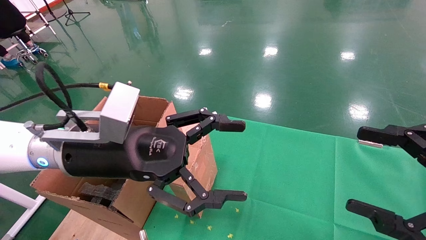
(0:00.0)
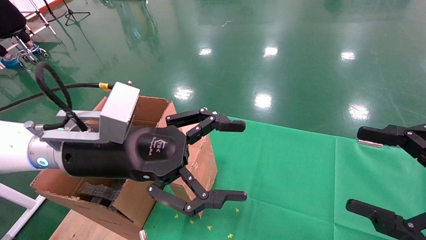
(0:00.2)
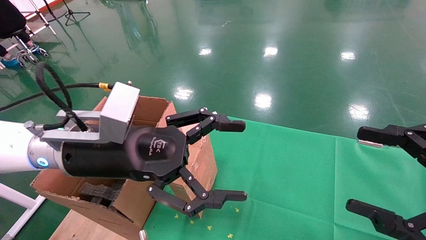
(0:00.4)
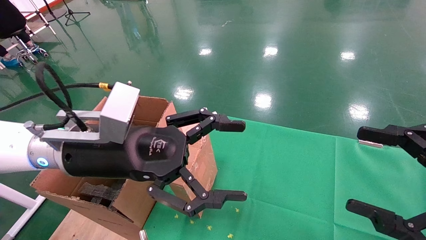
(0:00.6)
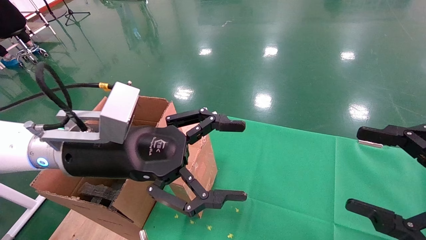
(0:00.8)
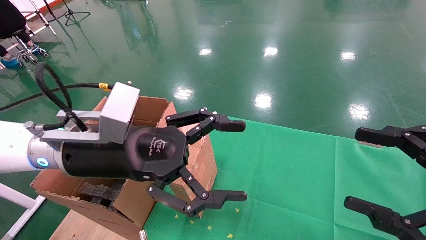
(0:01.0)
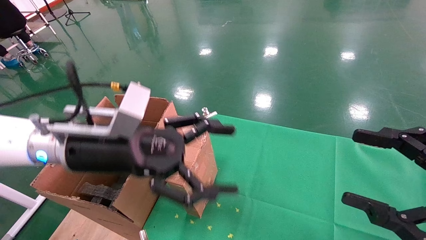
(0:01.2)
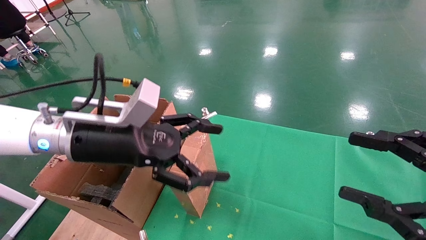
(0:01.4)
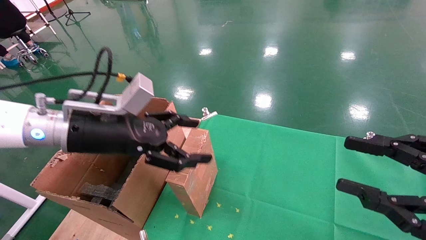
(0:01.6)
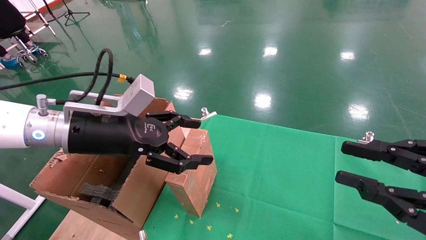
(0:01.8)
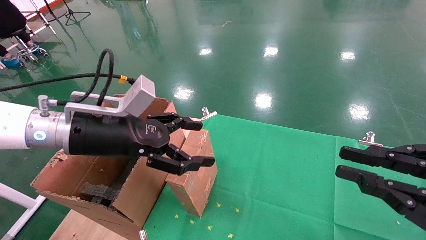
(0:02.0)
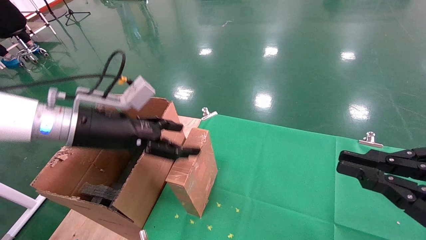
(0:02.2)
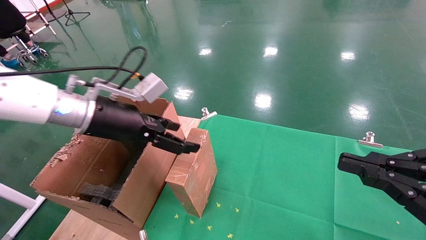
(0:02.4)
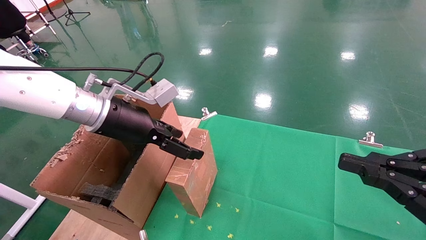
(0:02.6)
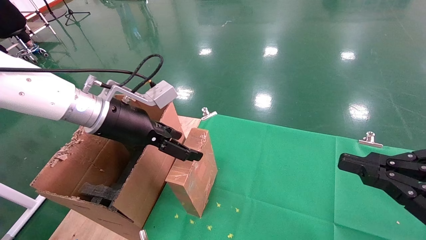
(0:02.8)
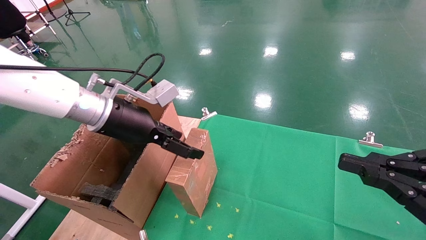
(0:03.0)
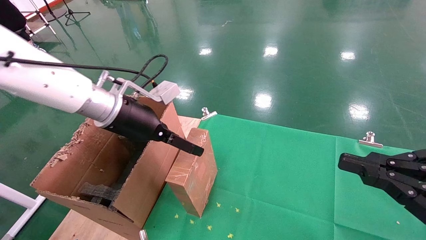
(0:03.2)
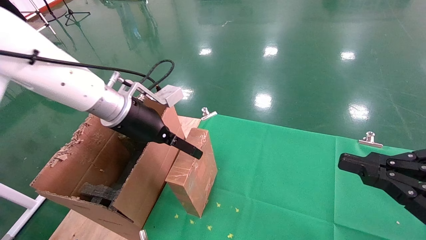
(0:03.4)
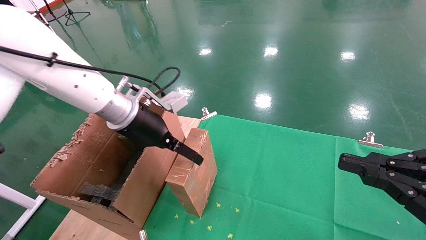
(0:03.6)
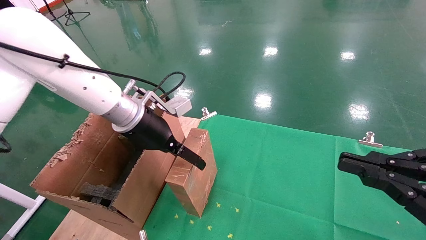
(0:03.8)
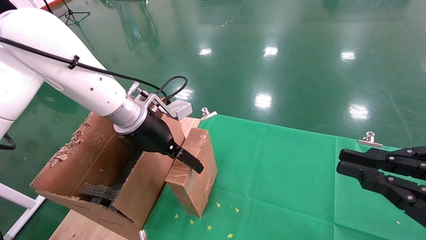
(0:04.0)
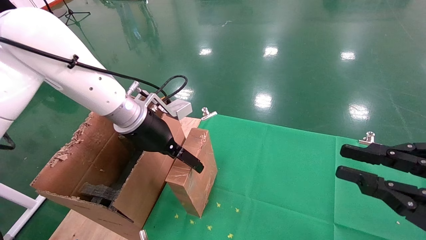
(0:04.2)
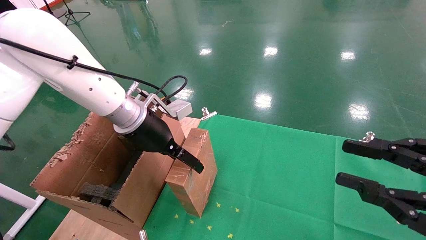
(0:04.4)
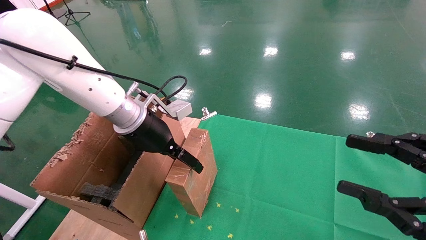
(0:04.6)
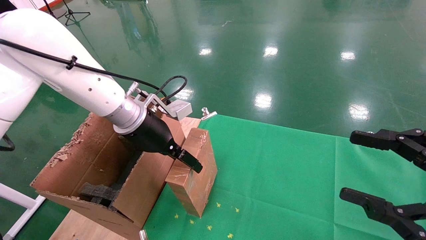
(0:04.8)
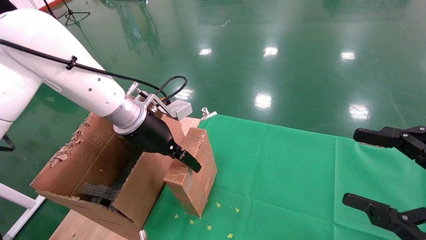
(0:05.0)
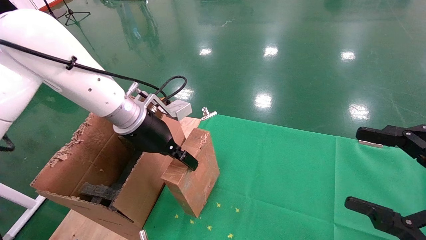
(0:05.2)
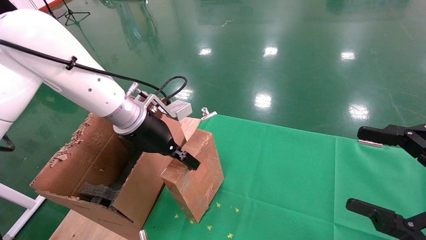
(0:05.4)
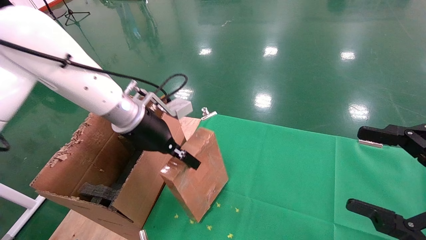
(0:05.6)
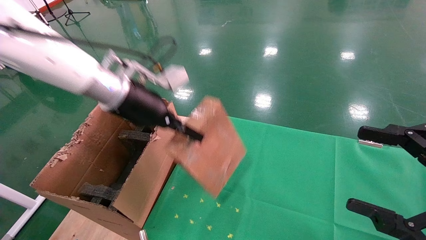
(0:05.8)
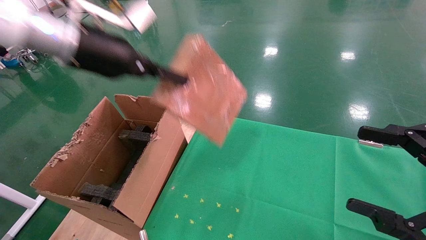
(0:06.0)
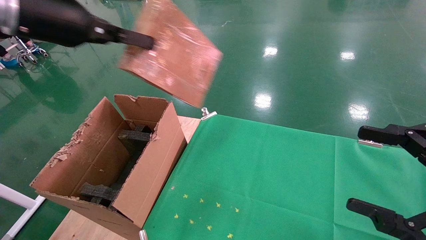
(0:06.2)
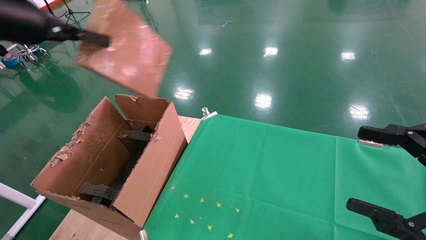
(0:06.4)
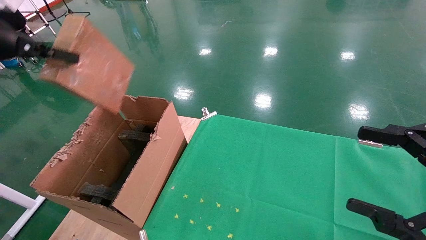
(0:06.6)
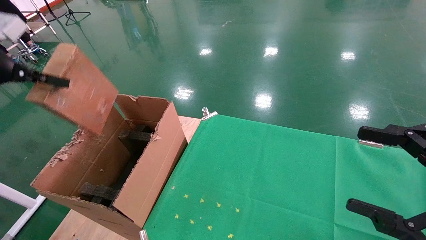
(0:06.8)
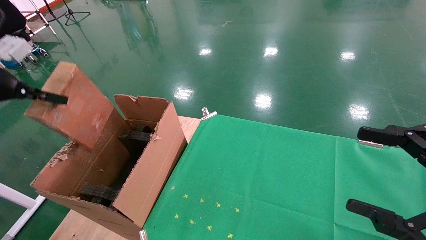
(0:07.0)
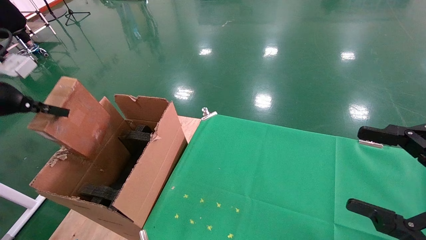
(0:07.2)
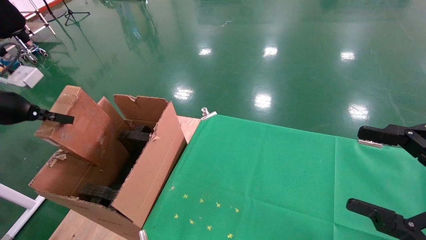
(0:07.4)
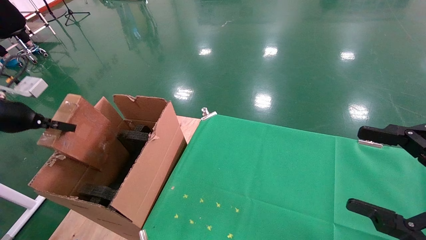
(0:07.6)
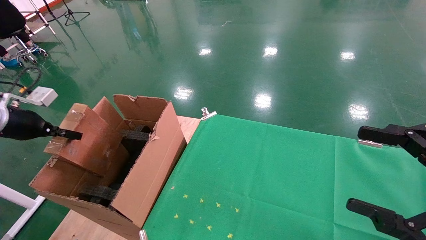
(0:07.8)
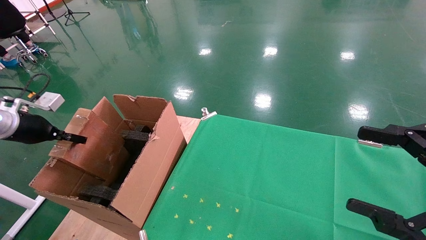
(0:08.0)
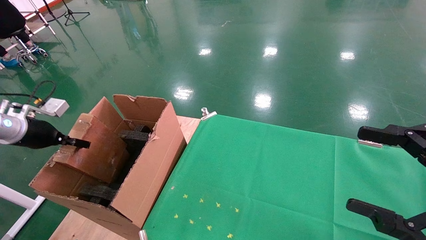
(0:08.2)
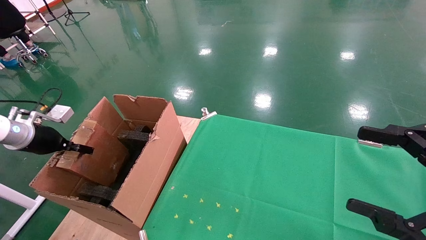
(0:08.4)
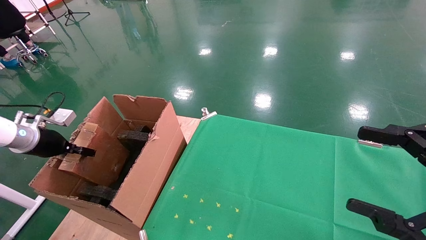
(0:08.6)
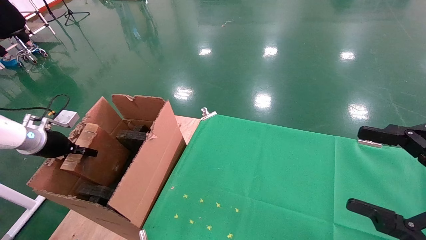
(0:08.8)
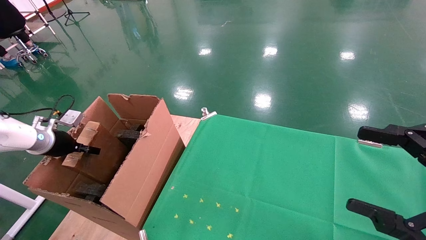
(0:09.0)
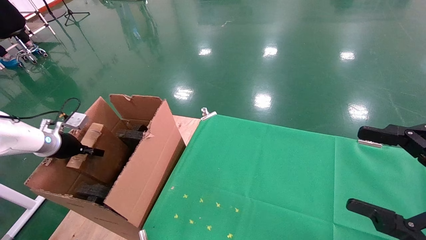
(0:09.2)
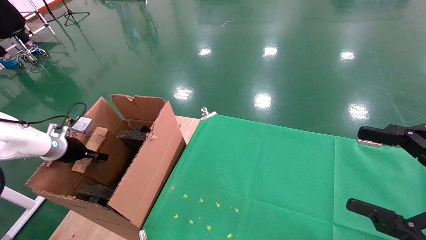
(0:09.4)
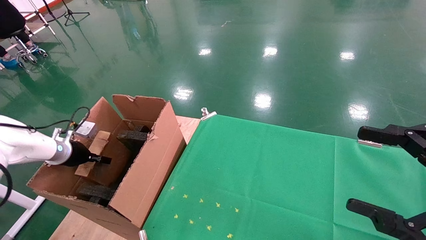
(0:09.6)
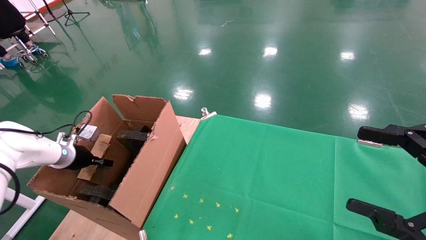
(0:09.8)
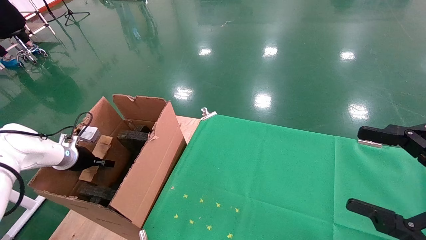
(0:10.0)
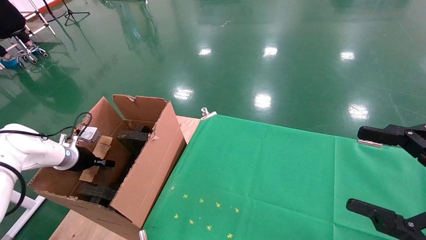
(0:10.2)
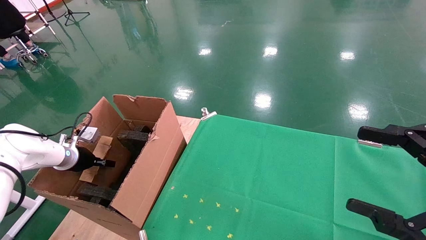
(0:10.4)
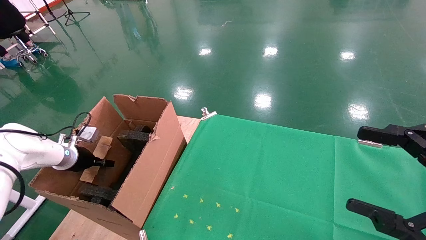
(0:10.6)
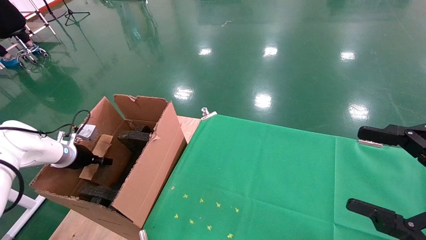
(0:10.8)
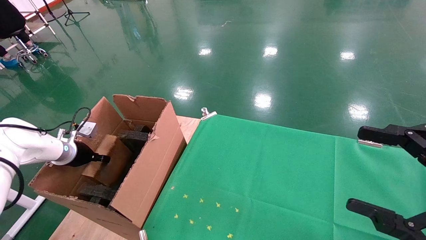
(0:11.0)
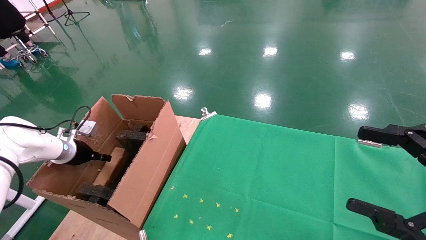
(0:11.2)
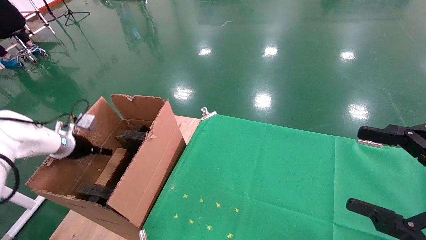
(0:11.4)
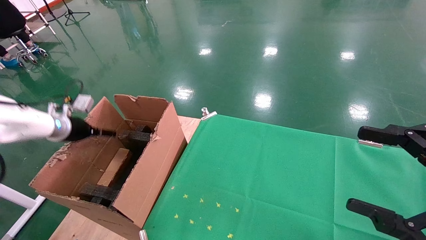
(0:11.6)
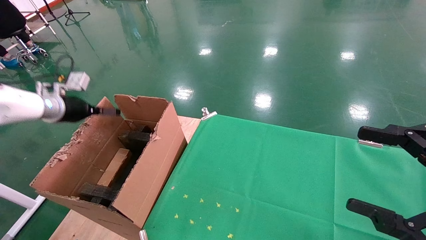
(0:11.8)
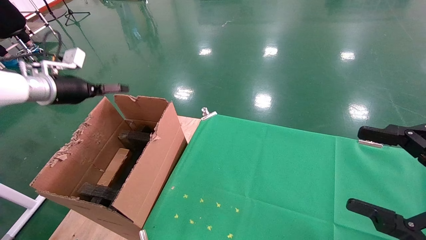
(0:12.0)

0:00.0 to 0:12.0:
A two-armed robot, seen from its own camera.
Task of the whole recording: using a robotic arm to pick up a cardboard box and palace it the carton.
Step, 0:01.2 to 0:05.2: Pick up the mouse and the power cord paper box.
Step, 0:05.4 to 0:11.8: Place the mouse and the power cord paper box into the container.
0:00.0 to 0:01.6: The right gripper closes up.
0:01.6 to 0:03.0: The right gripper closes. Meanwhile the left gripper shifts approximately 5 cm forward.
0:03.0 to 0:04.4: The left gripper moves some 5 cm.
0:04.4 to 0:06.0: The left gripper is displaced upward and to the left by some 15 cm, and closes, while the right gripper opens up.
0:06.0 to 0:07.6: The left gripper goes about 30 cm to the left and downward.
0:07.6 to 0:09.0: The left gripper moves downward and forward, about 15 cm.
0:09.0 to 0:10.4: The left gripper travels downward by approximately 5 cm.
0:10.4 to 0:12.0: The left gripper heads upward, covering about 20 cm, and opens its fingers.

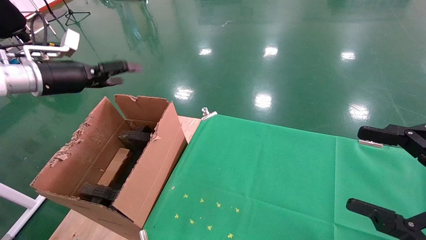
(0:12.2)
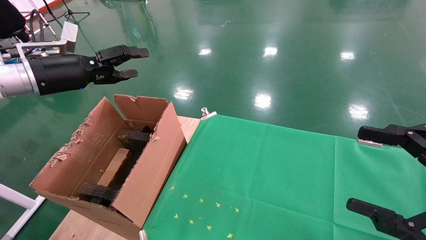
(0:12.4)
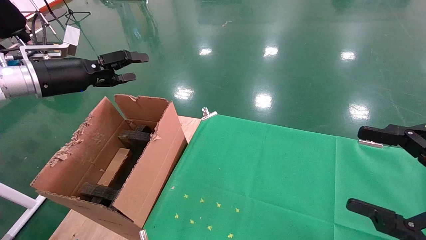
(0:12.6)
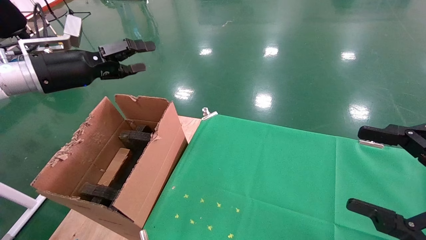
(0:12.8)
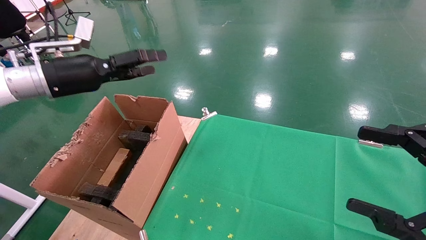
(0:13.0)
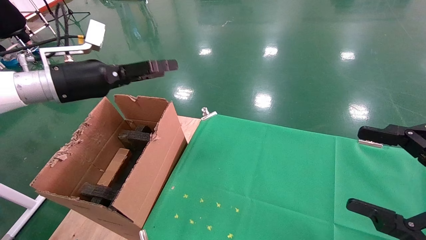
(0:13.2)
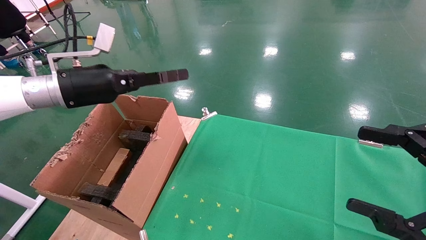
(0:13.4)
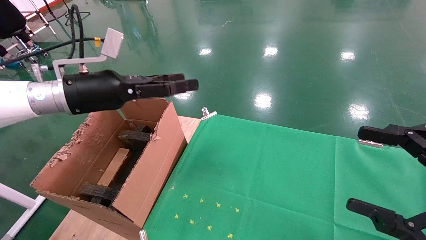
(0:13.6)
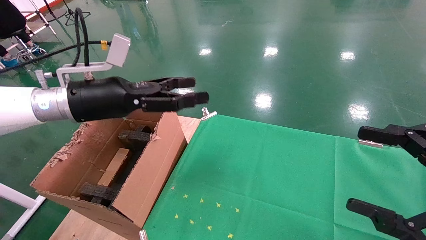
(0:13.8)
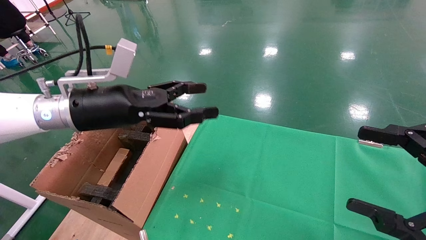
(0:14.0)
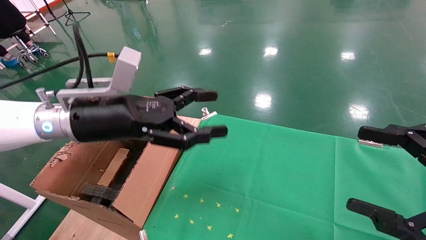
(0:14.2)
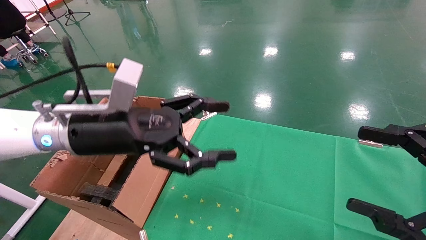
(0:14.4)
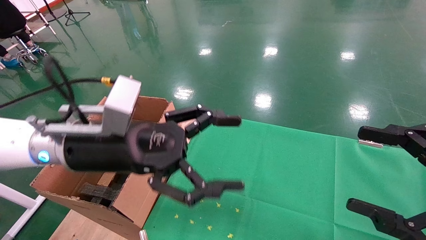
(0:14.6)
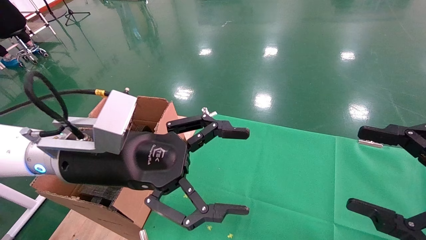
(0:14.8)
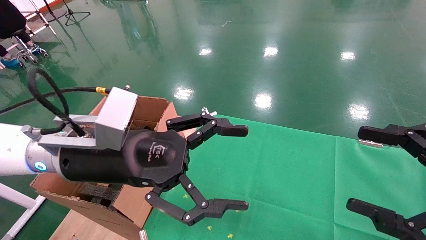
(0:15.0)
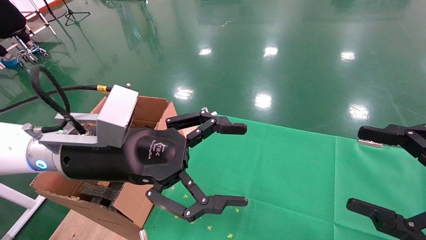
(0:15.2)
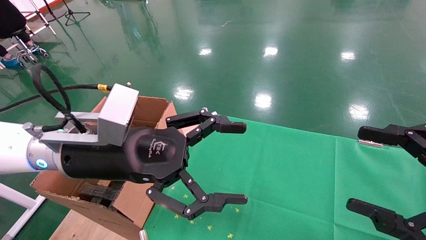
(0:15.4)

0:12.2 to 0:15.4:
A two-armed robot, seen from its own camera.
Task of the whole recording: using a robotic arm to pick up a cardboard box and palace it the carton.
0:12.2 to 0:13.8: The left gripper goes about 15 cm to the right.
0:13.8 to 0:15.4: The left gripper moves to the right and backward, some 10 cm.

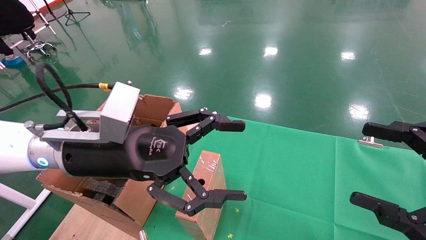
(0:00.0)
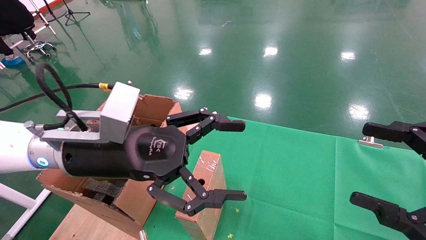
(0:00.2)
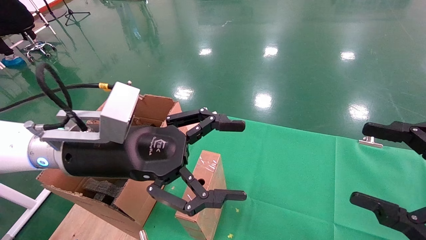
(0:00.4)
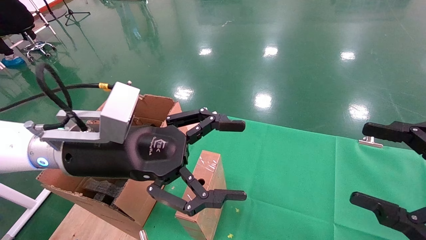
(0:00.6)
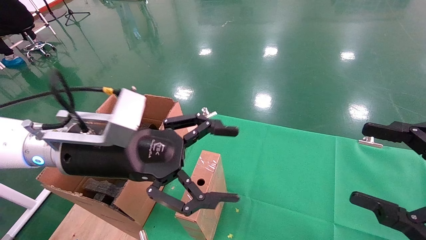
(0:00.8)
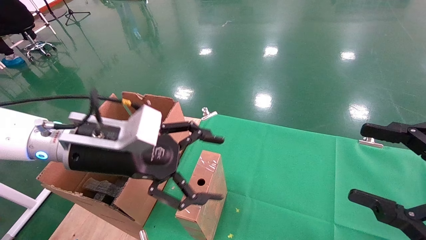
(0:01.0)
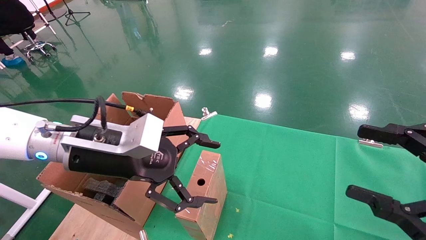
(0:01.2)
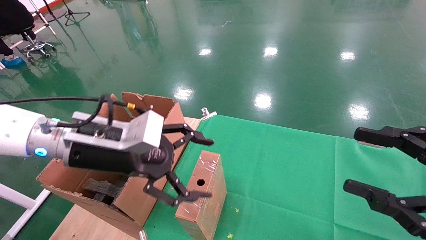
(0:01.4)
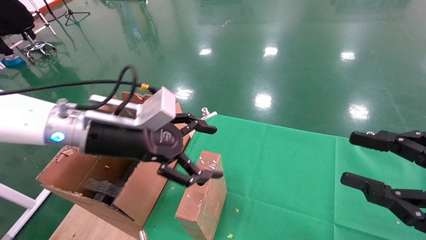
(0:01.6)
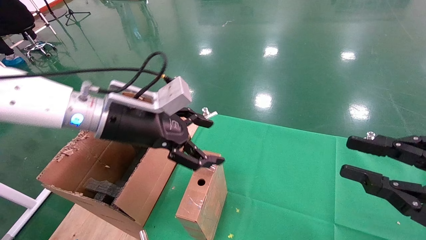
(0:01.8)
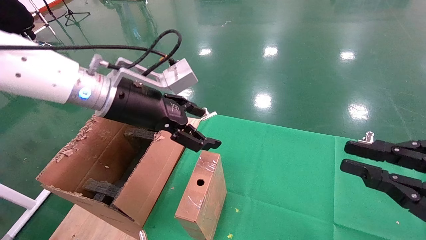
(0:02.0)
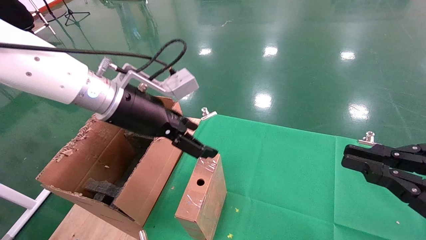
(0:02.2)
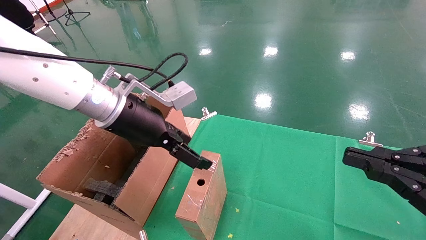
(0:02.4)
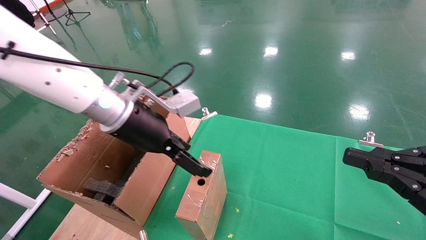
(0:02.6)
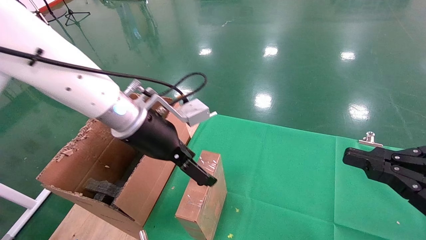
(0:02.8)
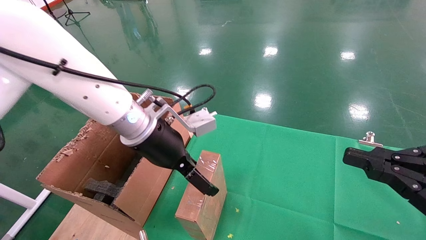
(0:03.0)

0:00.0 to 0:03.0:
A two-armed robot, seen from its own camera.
Task of the whole recording: using a robotic arm to pick up a cardboard box and palace it the carton.
0:00.0 to 0:01.6: The left gripper moves forward, some 5 cm. Meanwhile the right gripper closes up.
0:01.6 to 0:03.0: The right gripper closes up; the left gripper goes approximately 5 cm to the right.
